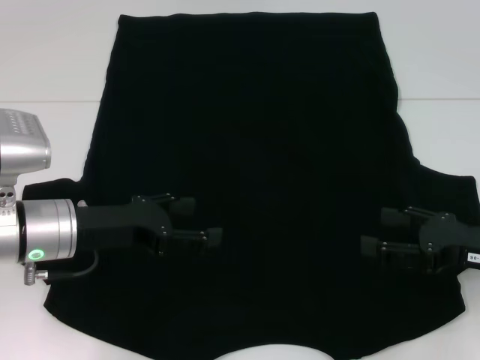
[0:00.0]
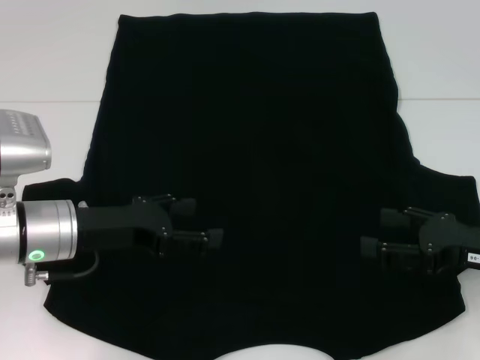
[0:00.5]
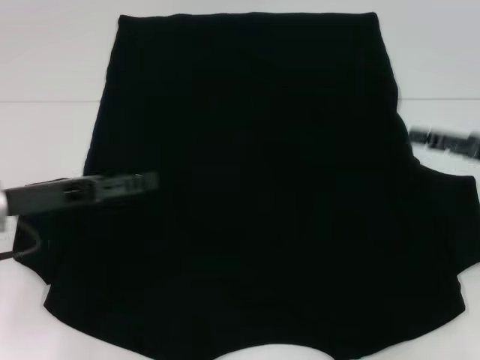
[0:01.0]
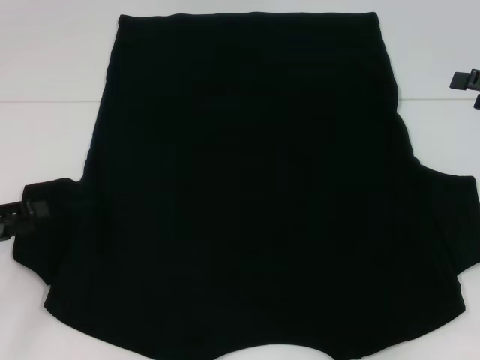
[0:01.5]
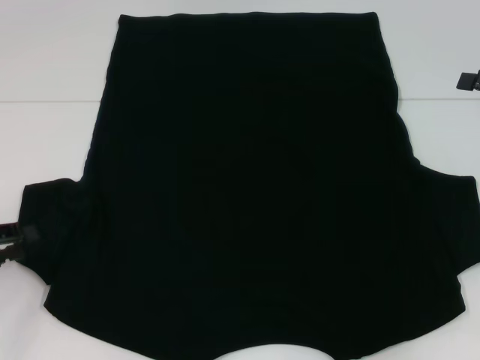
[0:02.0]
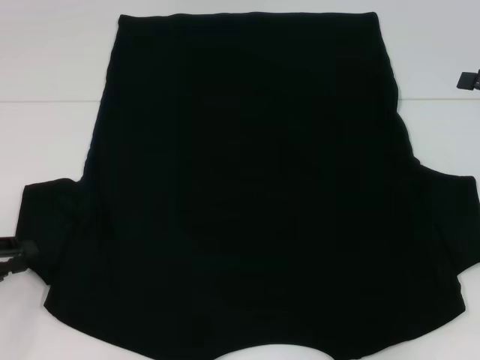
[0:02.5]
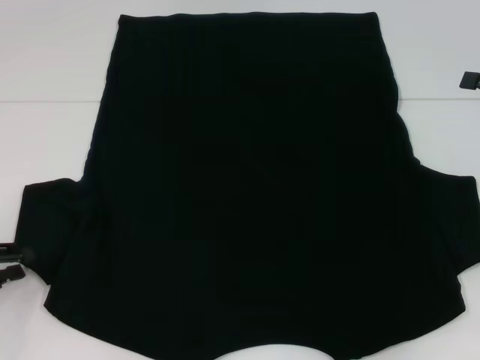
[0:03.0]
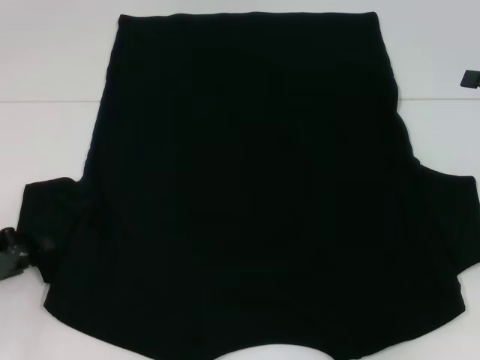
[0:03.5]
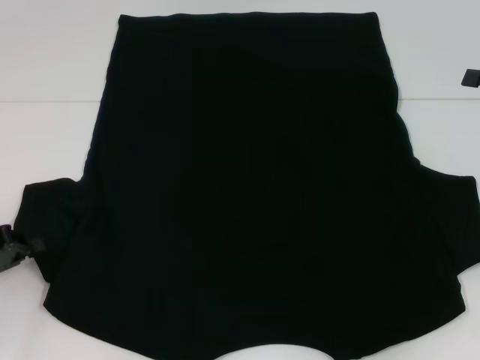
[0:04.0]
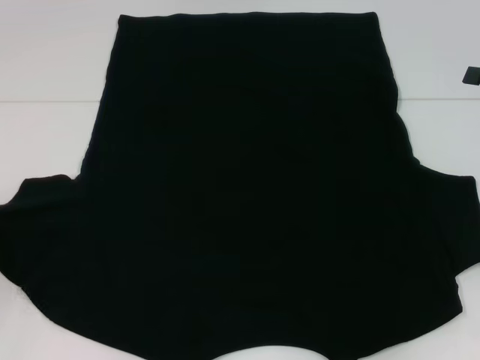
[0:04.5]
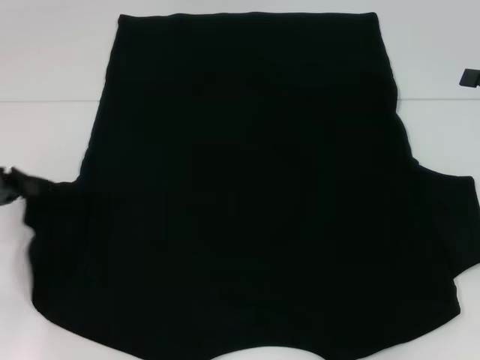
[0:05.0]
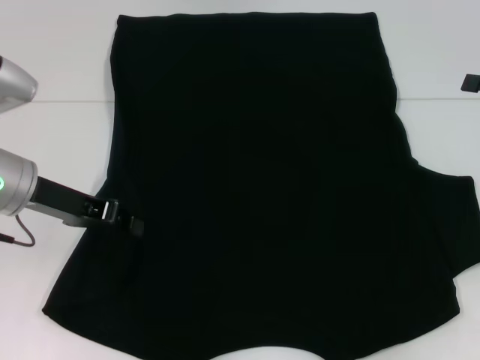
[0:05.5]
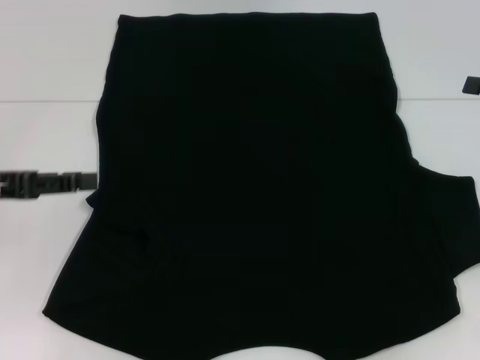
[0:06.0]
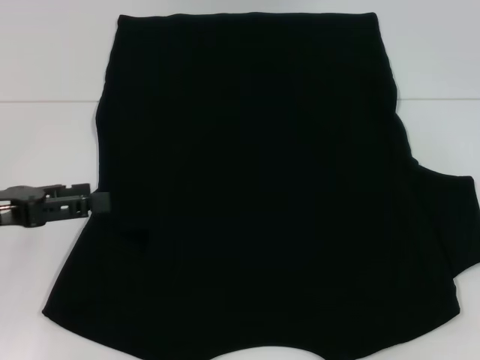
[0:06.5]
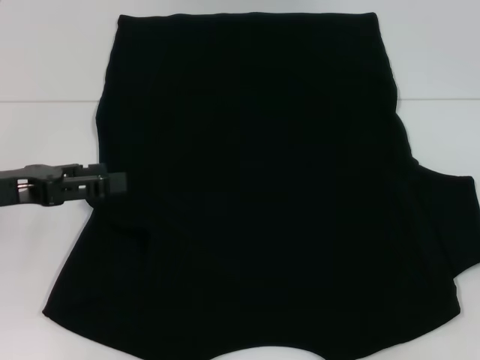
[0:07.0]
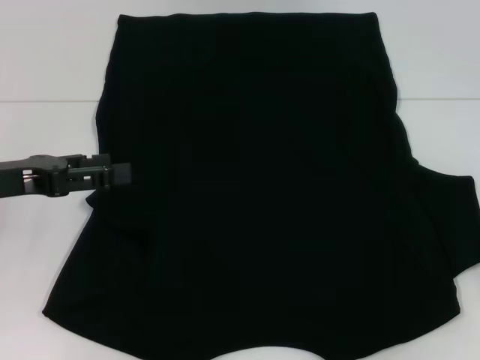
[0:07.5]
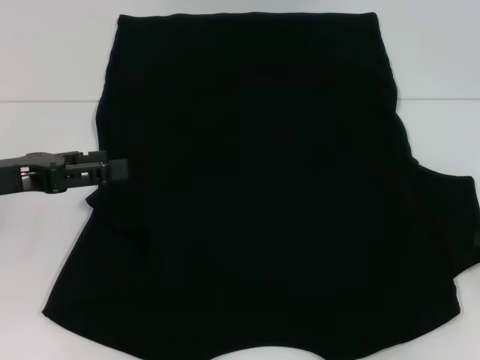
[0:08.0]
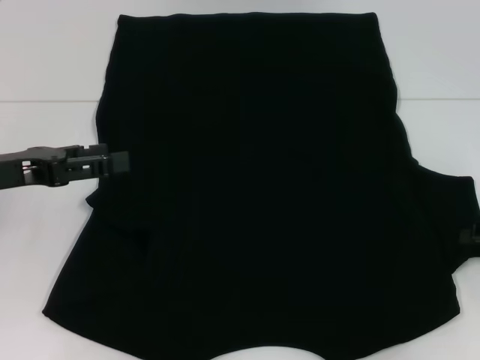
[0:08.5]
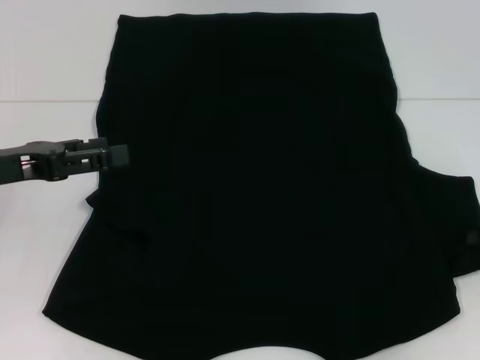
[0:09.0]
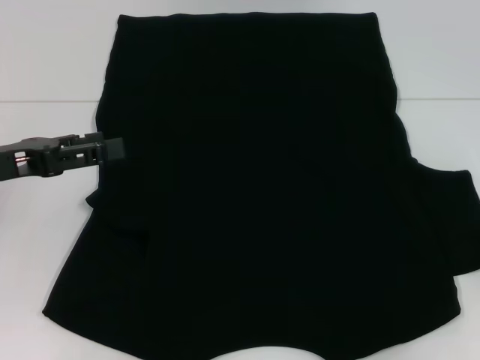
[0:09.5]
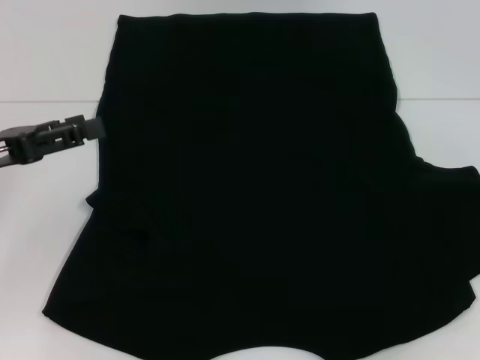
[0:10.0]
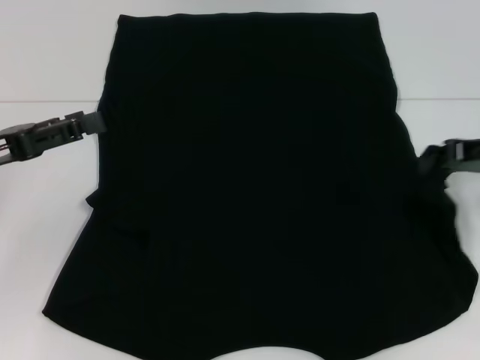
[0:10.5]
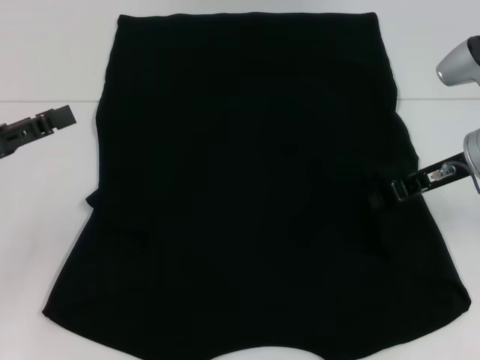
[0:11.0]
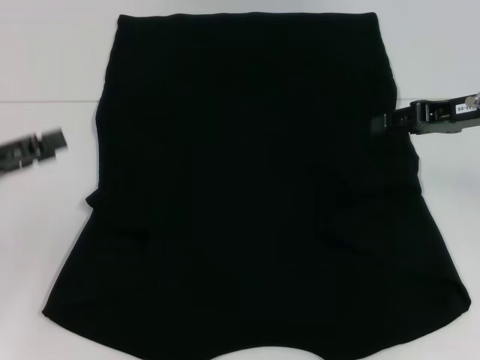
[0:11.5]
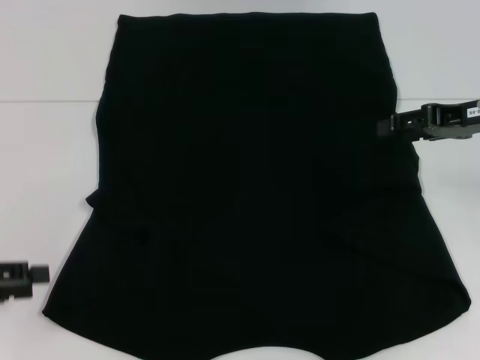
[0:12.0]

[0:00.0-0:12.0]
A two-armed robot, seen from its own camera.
Step, 0.0 to 5.5 s: Fold the bottom left sleeve with your left hand.
Step, 6.0 to 11.0 s: Fold the bottom right sleeve with your right hand.
0.0 to 2.0 s: The right gripper shifts about 15 cm upward, forward and to the right. The left gripper goes approximately 15 cm to the left, and closes.
4.0 to 6.0 s: The left gripper moves left and right over approximately 15 cm, changing direction 2 times.
6.0 to 8.0 s: The left gripper opens its fingers.
8.0 to 10.0 s: The right gripper closes.
10.0 to 12.0 s: The left gripper goes some 10 cm backward and to the left, while the right gripper is displaced to the left and forward by roughly 15 cm, and opens its fingers.

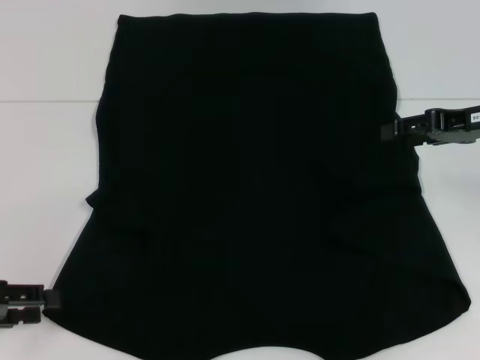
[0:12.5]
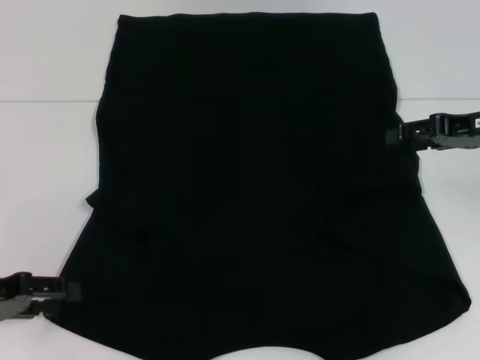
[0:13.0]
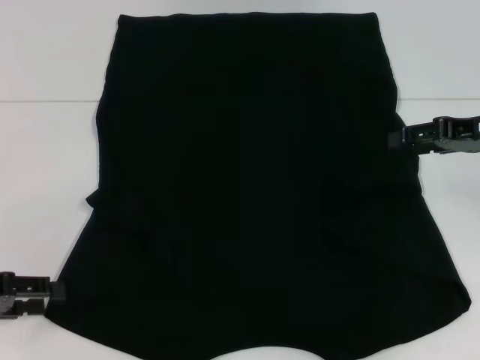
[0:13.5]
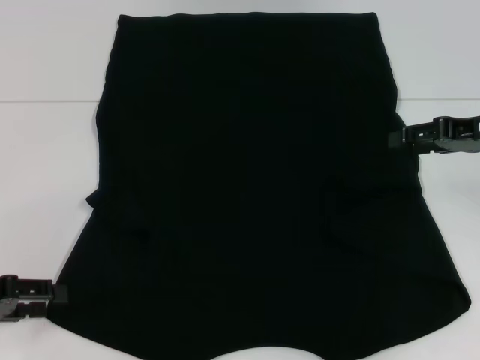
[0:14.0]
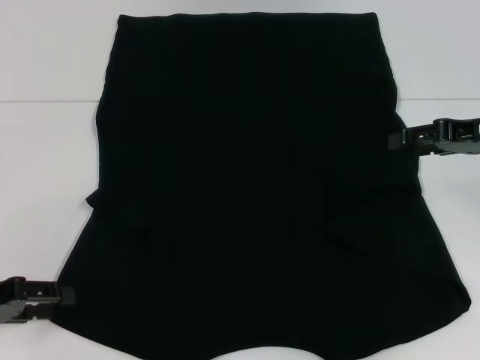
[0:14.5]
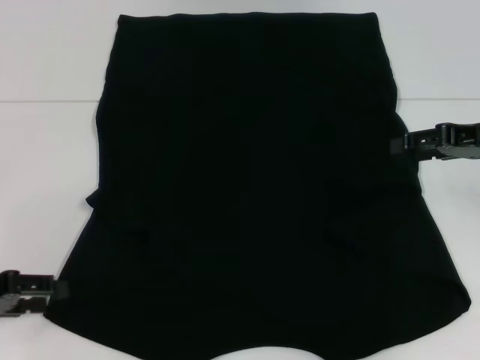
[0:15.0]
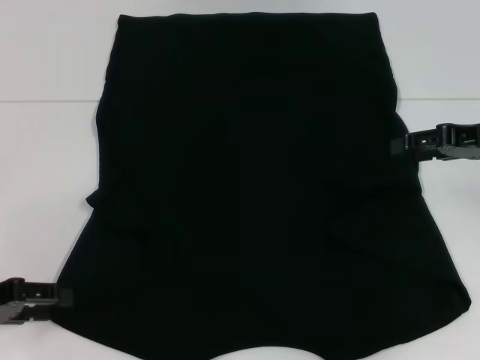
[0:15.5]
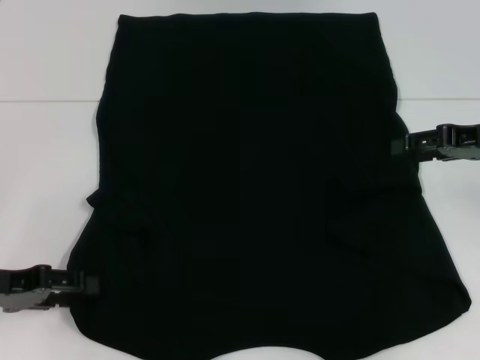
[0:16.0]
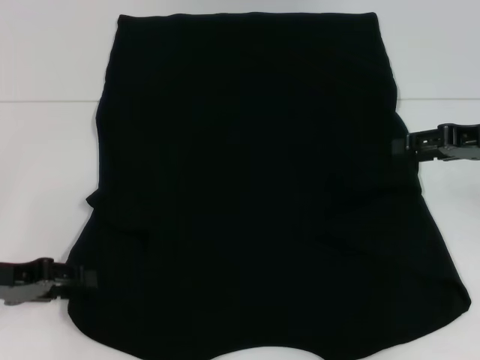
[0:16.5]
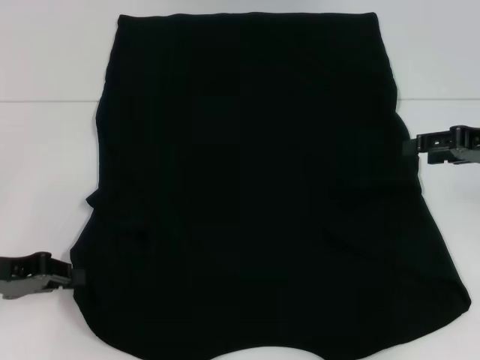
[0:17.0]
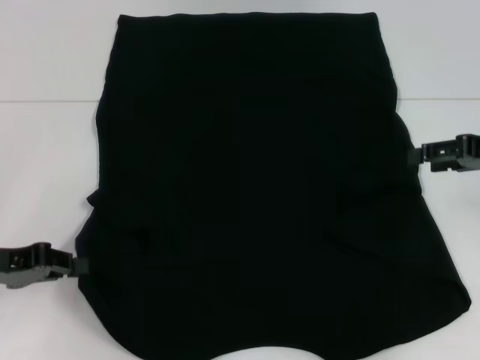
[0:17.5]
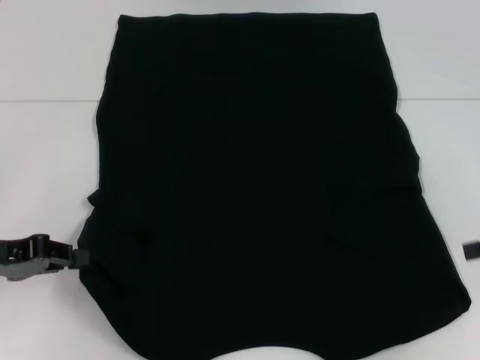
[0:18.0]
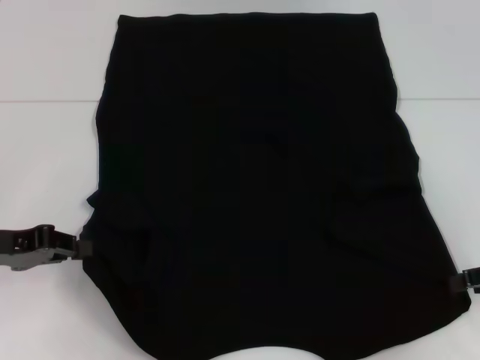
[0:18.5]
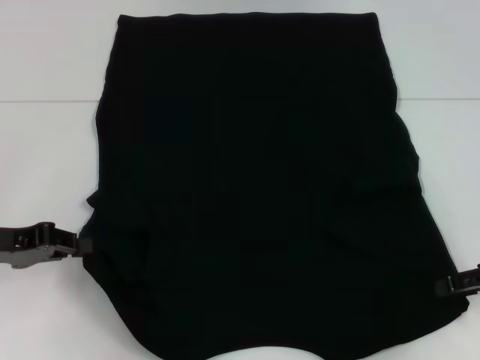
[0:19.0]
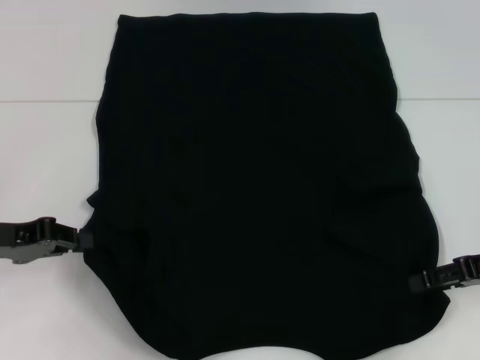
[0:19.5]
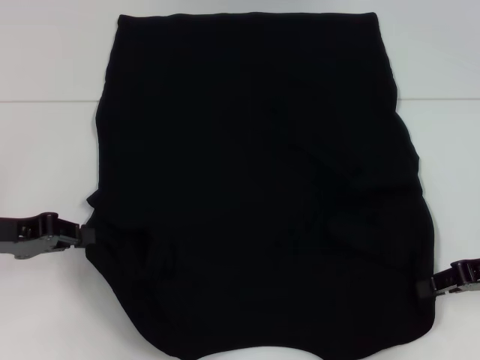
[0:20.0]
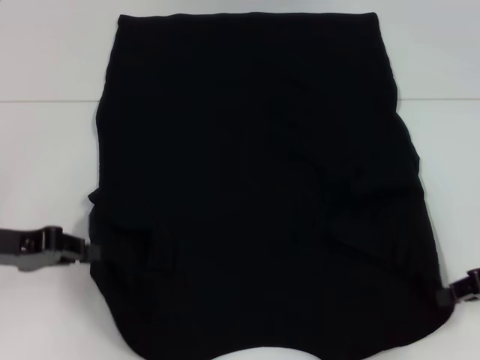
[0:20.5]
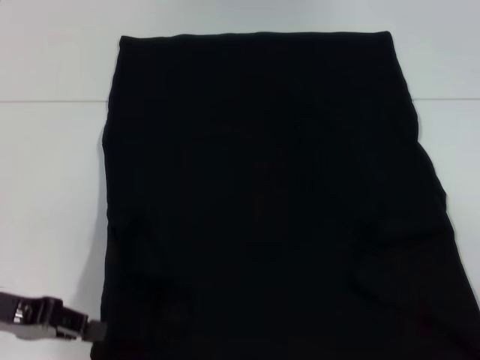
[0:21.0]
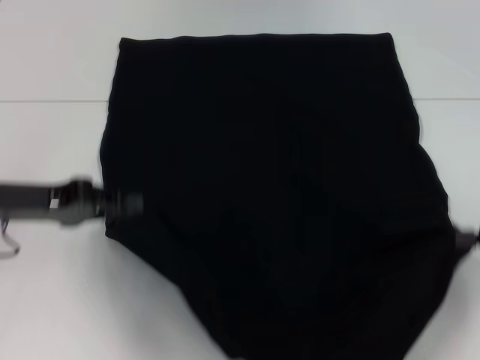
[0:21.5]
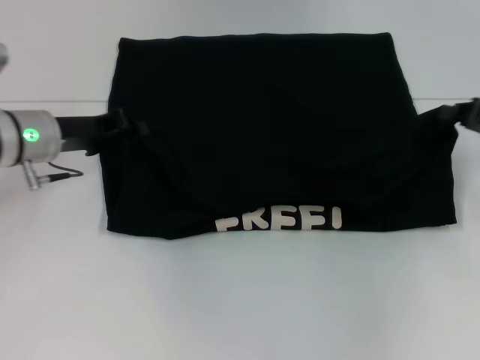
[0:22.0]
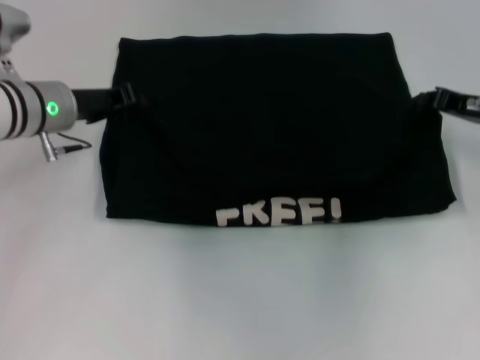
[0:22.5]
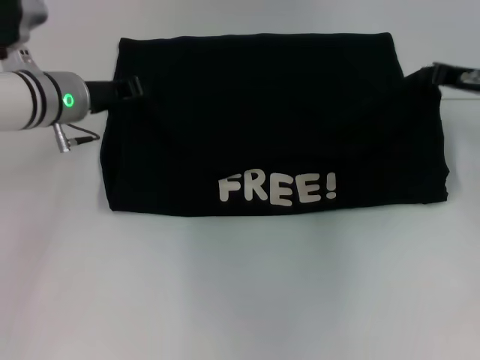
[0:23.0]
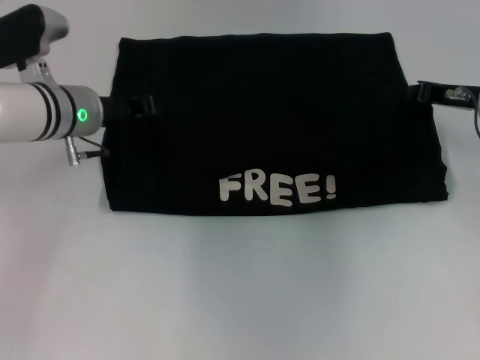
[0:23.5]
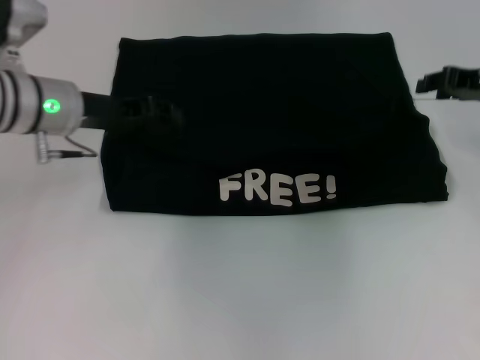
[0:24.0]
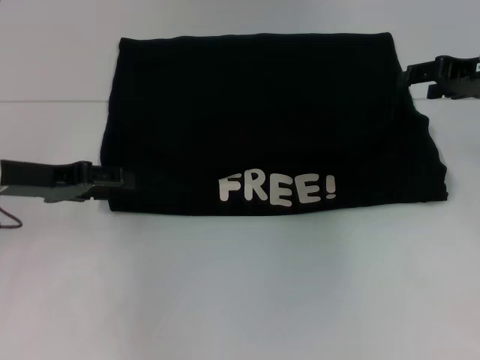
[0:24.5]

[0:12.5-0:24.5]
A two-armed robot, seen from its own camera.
Step, 12.5 to 18.0 s: Grab the bottom left corner with your left hand.
Step, 18.5 to 19.5 s: Grab the bottom right corner with your right hand.
Step, 20.0 to 23.5 s: Fold the clothes with your left hand.
Step, 20.0 to 23.5 s: Fold the clothes with your right hand.
12.5 to 16.5 s: The grippers stay close to where they were, moving slightly.
16.5 to 18.5 s: The right gripper is displaced backward, downward and to the right by some 10 cm. Meanwhile the left gripper closes.
18.5 to 20.5 s: The right gripper closes.
20.5 to 22.5 s: The left gripper shifts some 15 cm forward and to the right, while the right gripper goes approximately 10 cm forward.
22.5 to 24.5 s: The left gripper moves backward and to the left, about 10 cm, and opens its fingers; the right gripper moves upward, some 5 cm, and opens.

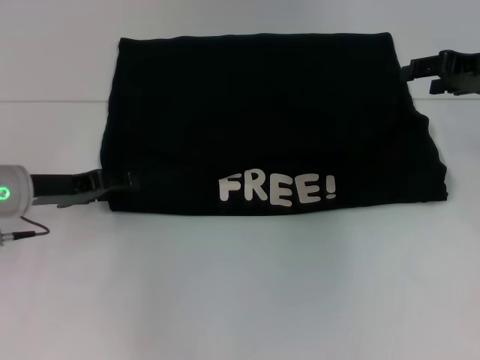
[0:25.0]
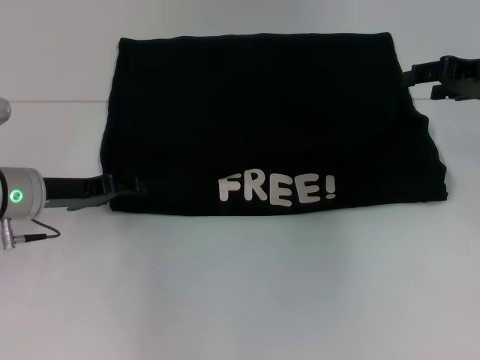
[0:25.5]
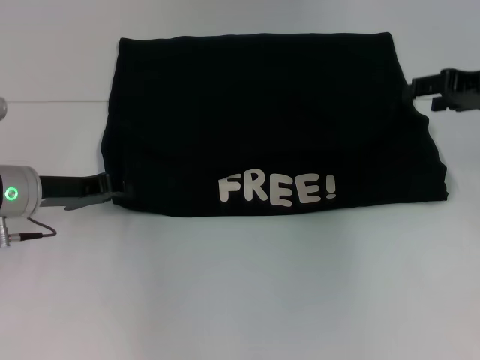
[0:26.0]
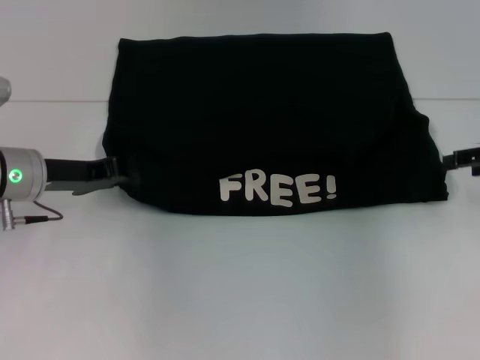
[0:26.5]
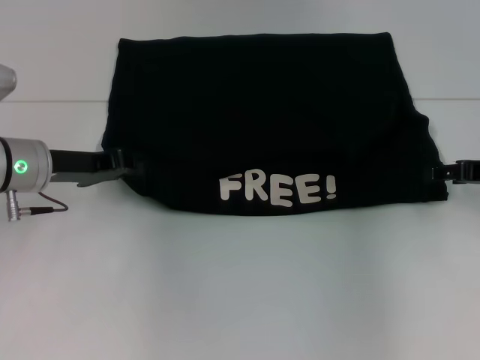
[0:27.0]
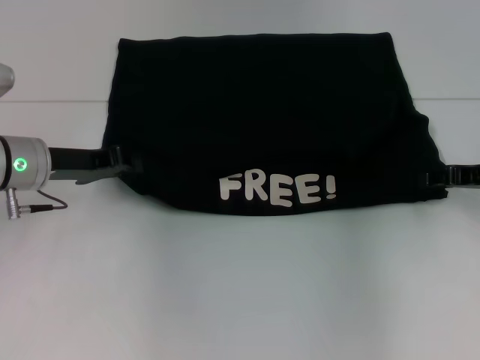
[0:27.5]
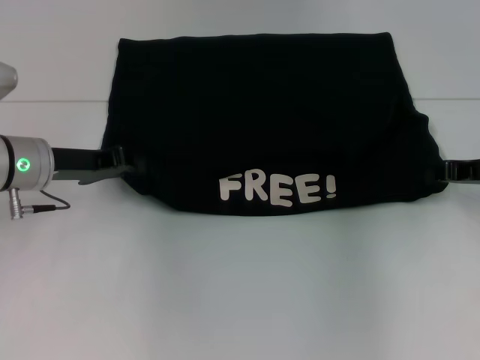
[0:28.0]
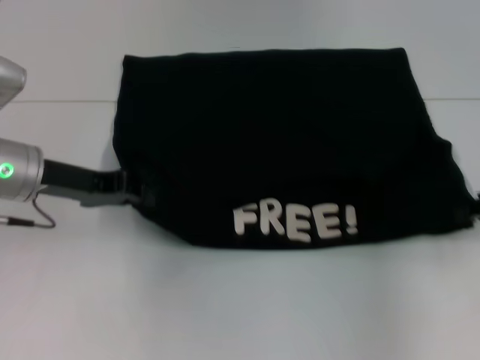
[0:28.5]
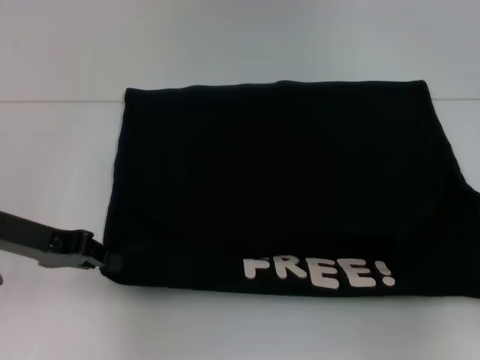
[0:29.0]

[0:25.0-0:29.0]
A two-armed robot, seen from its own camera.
Step, 25.0 to 29.0 s: Pull the clothes with your left hand.
Step, 25.0 to 29.0 s: Pull the clothes with your right hand.
25.0 to 27.0 s: The right gripper moves downward and backward, about 10 cm. The left gripper closes.
27.0 to 29.0 s: The left gripper travels backward by some 5 cm; the right gripper goes some 10 cm backward and to the right, and closes up.
